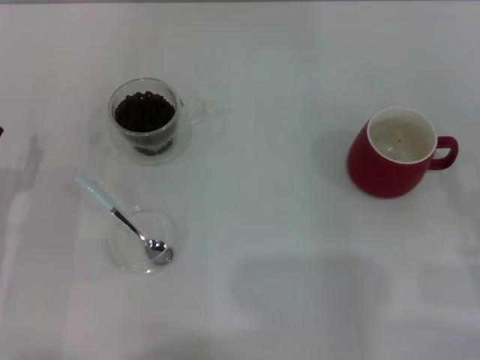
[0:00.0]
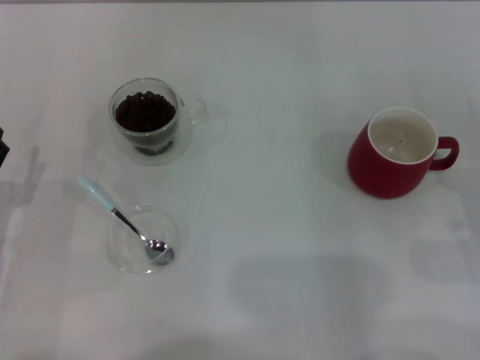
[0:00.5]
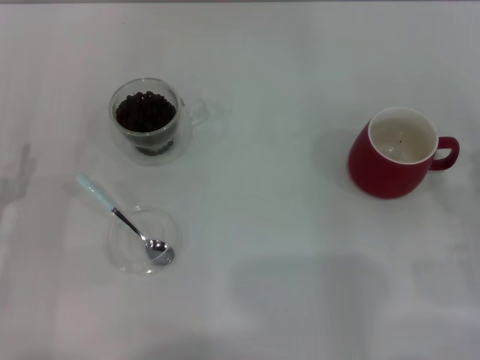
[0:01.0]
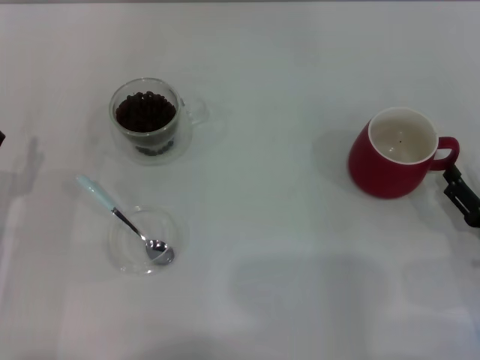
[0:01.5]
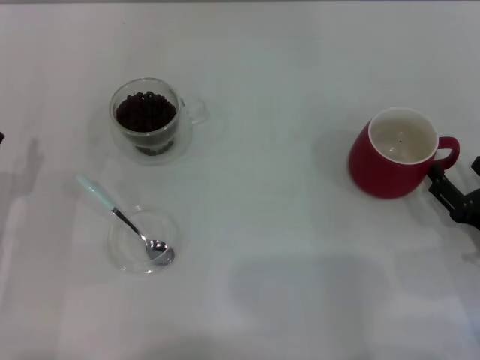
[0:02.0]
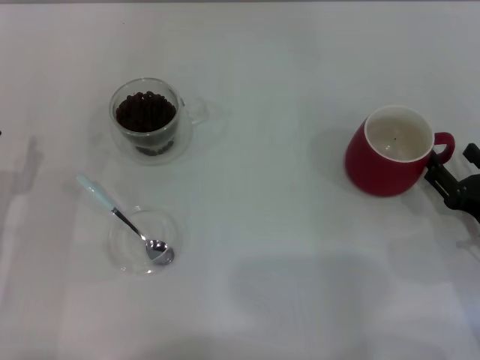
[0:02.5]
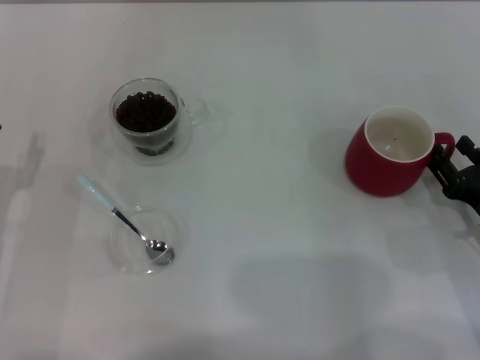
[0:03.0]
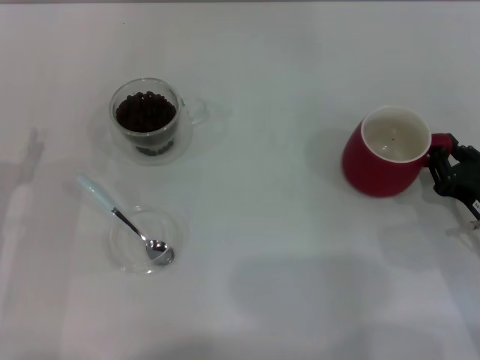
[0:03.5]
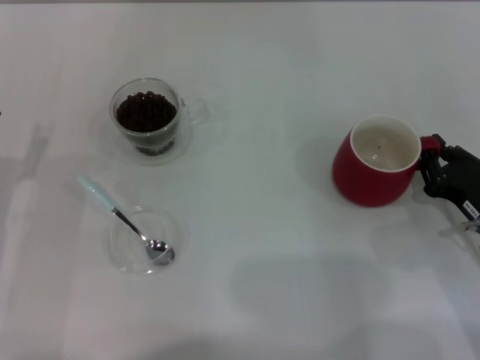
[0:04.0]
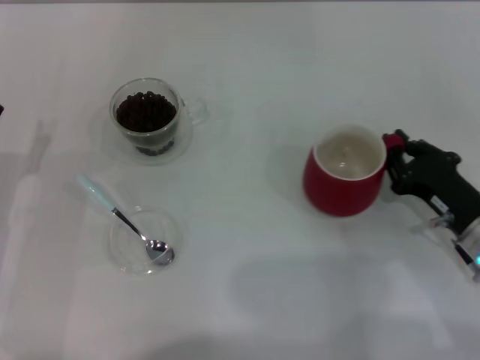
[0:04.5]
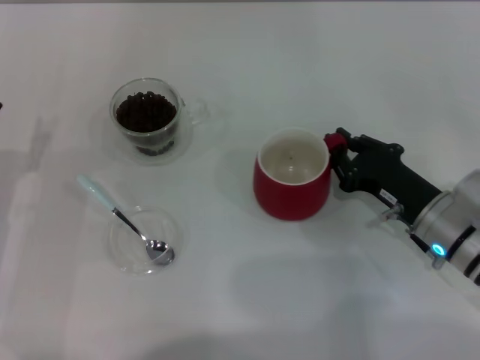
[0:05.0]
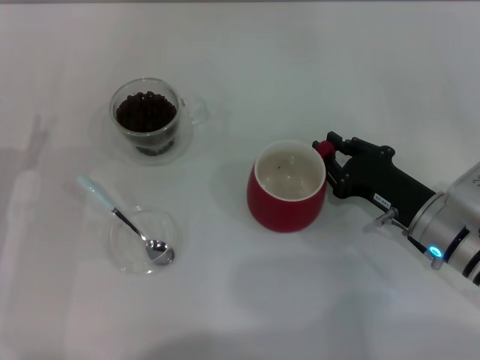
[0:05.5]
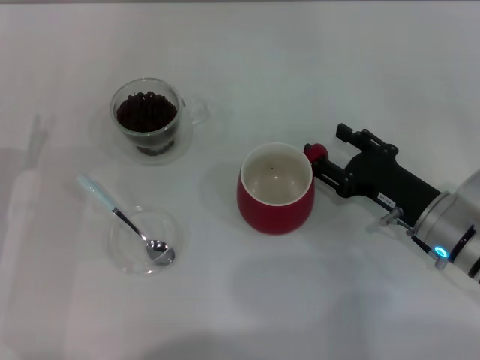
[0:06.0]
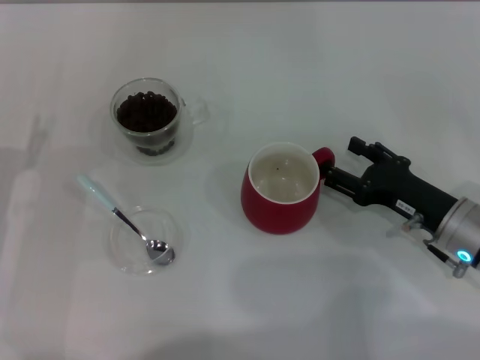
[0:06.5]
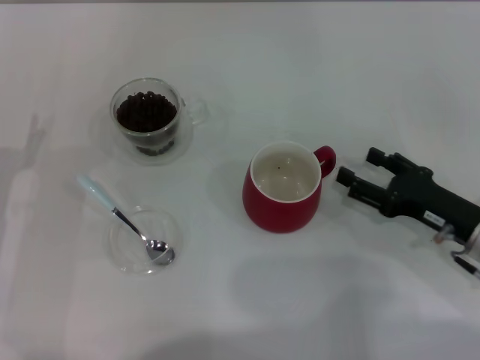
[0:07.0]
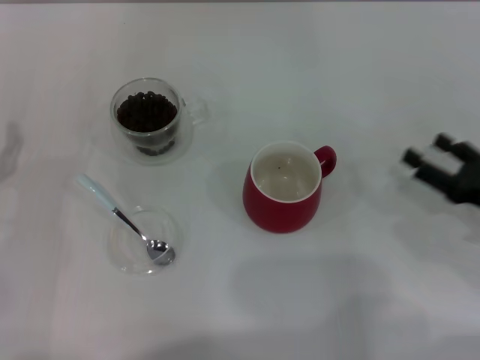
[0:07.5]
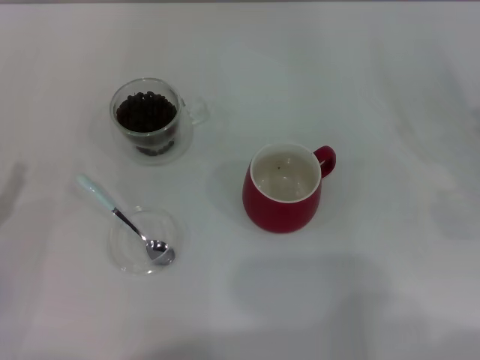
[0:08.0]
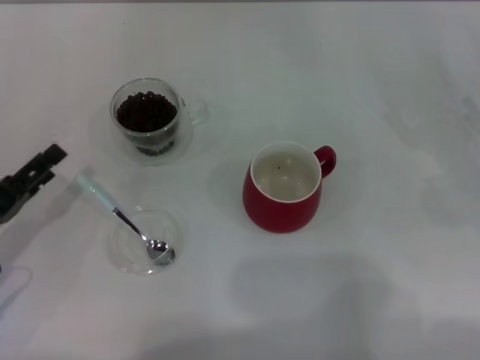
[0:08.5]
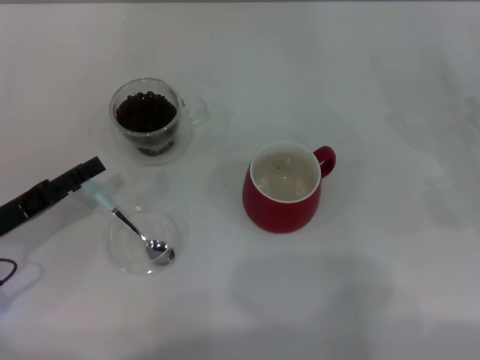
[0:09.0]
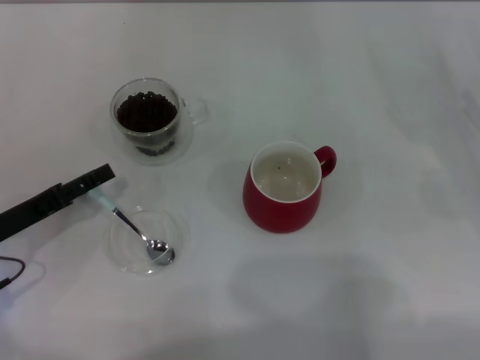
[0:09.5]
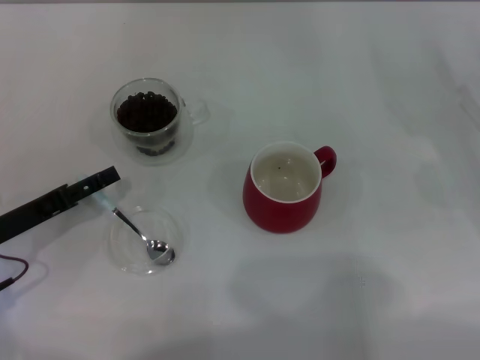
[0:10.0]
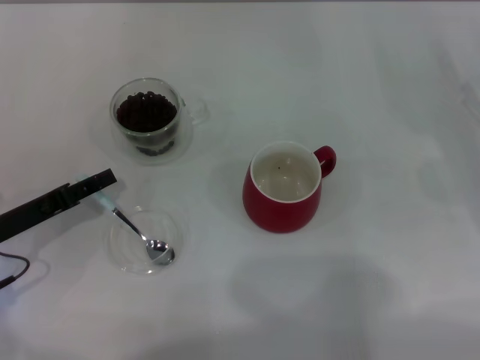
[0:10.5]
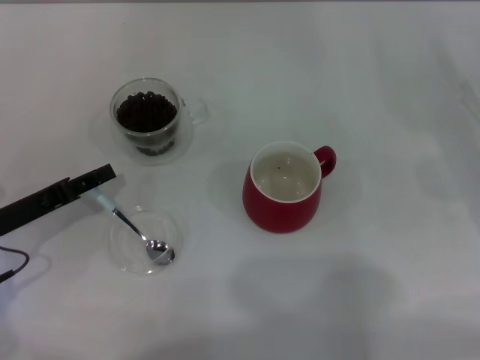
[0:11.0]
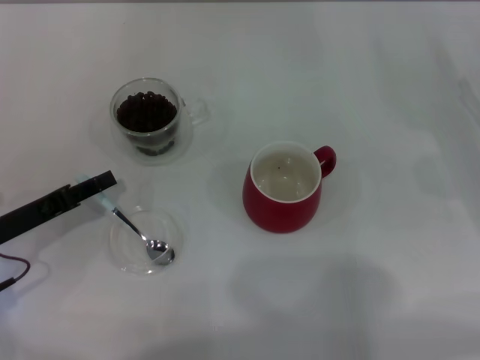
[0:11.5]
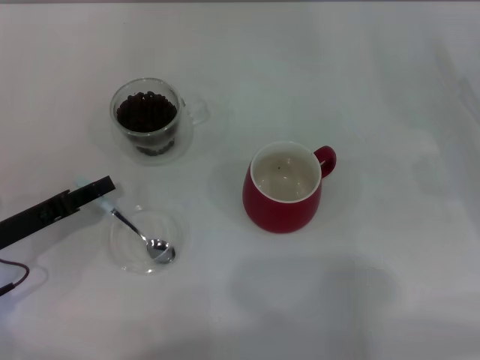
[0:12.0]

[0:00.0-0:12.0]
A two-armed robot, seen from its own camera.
Task of the whole recording: Use a blue spoon to take out the coffee beans from the glass and pour them into the red cup.
Step, 0:00.0 to 0:07.0: Move the cup to the center of view with the left gripper.
0:00.0 to 0:02.0: The grippers make only small movements.
0:02.0 to 0:04.0: The right gripper closes.
0:04.0 to 0:06.0: The right gripper shifts approximately 5 cm to the left, and opens.
0:06.0 to 0:08.0: The left gripper shifts about 5 cm backward; the right gripper travels to the right by approximately 15 cm, and opens its fingers.
0:08.0 to 0:10.0: The left gripper shifts some 5 cm forward.
0:10.0 to 0:12.0: The left gripper closes up.

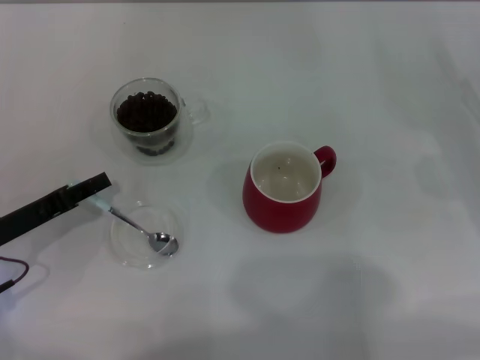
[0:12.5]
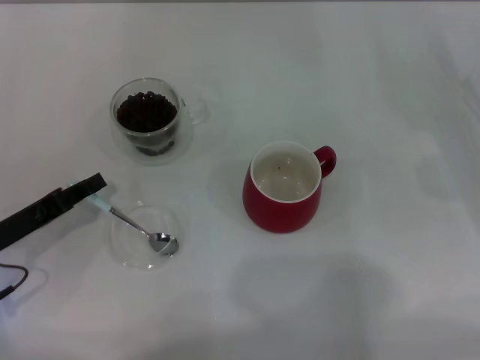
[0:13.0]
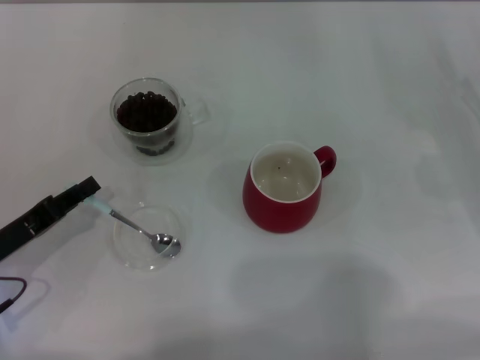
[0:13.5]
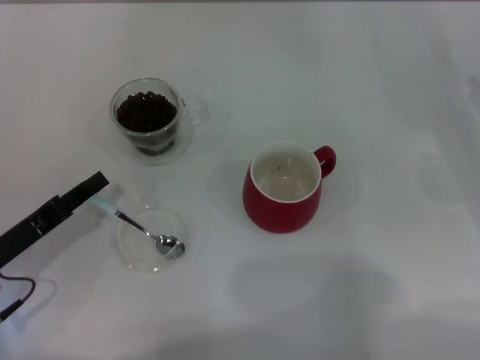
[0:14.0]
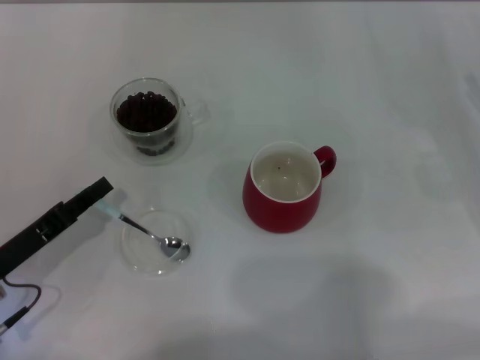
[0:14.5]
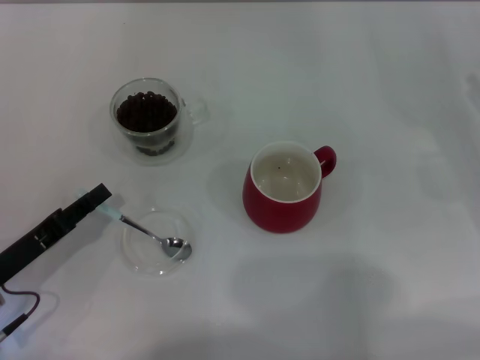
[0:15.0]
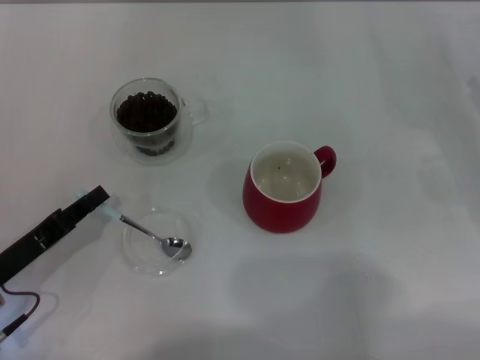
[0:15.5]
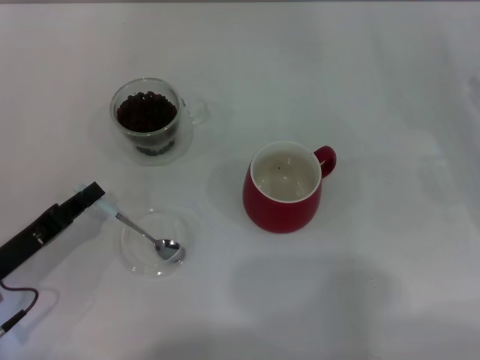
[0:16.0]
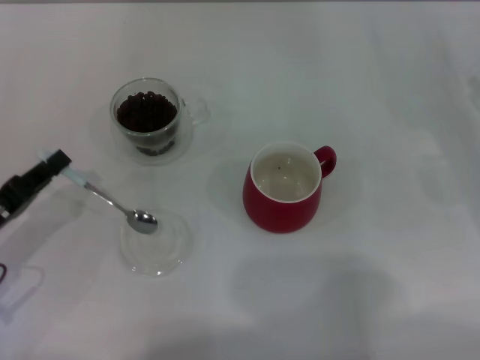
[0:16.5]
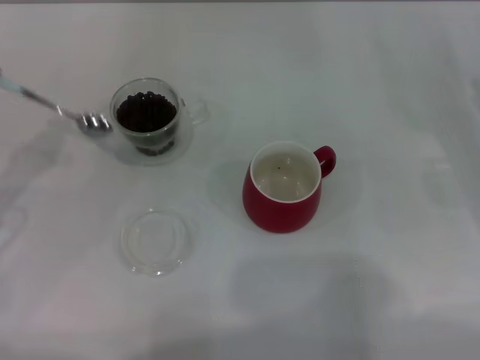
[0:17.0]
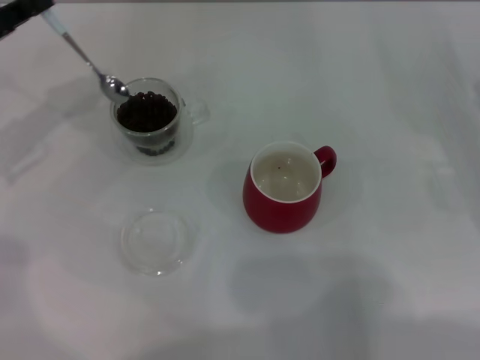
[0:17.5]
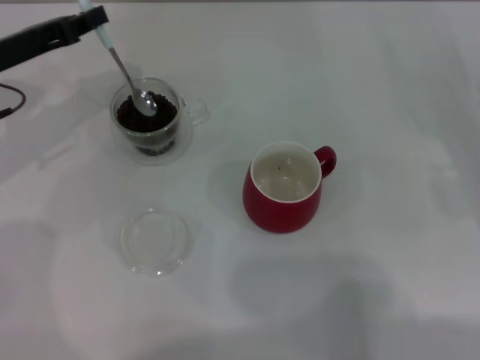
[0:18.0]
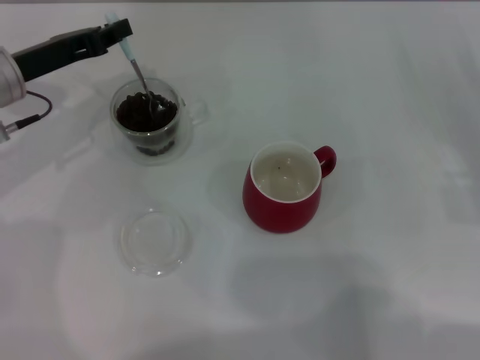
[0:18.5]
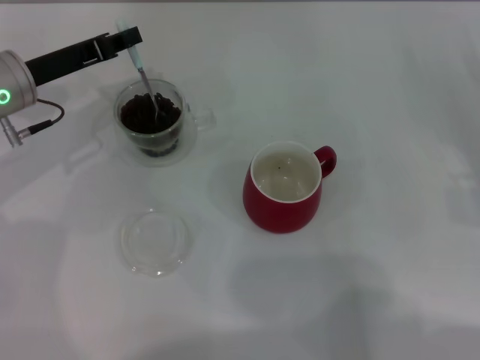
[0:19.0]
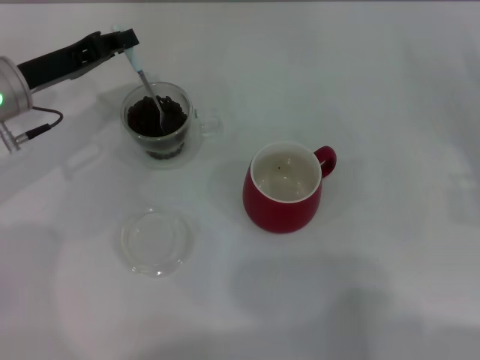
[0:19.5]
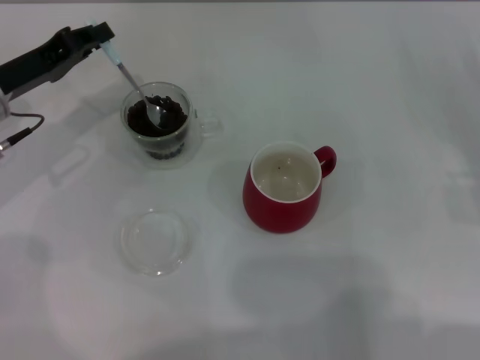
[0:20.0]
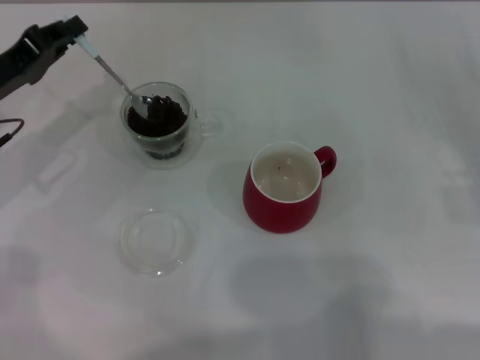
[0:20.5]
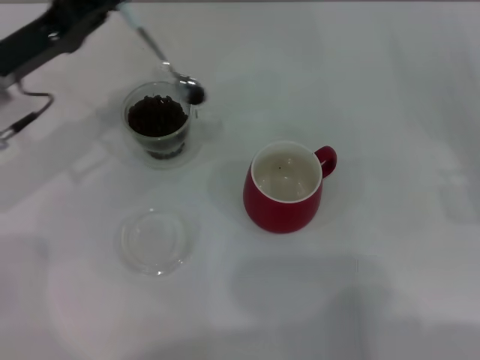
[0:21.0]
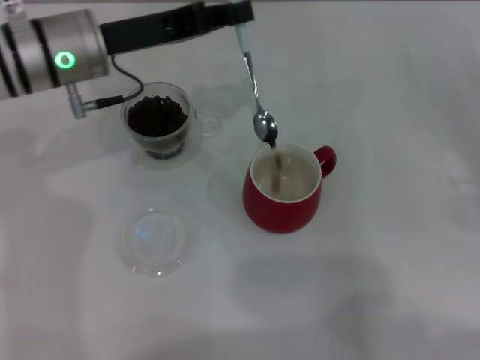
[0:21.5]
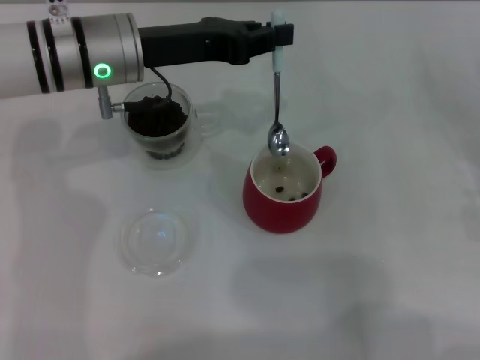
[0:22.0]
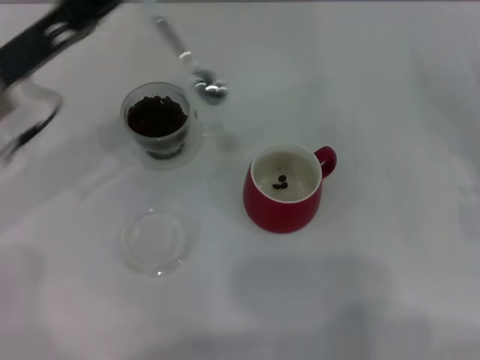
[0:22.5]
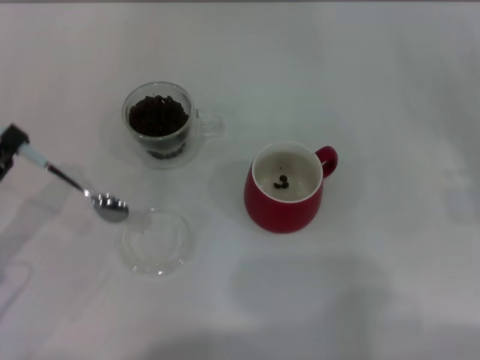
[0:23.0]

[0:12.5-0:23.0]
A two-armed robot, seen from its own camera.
Task of the whole recording: Use a blue spoon to take out the coffee beans from the glass and pour them into the red cup.
Step, 0:12.5 to 0:16.0: Pick up the spoon with the right gripper.
0:12.5 to 0:14.5: The grippers move only a little.
0:14.5 to 0:16.5: The left gripper closes up.
0:16.5 to 0:19.0: The left gripper shifts roughly 20 cm forward and upward.
0:21.0 to 0:23.0: The left gripper shifts some 20 cm backward, to the left and downward.

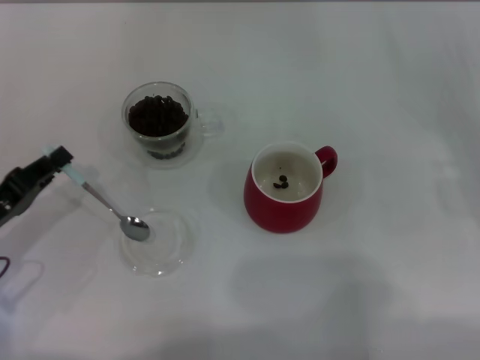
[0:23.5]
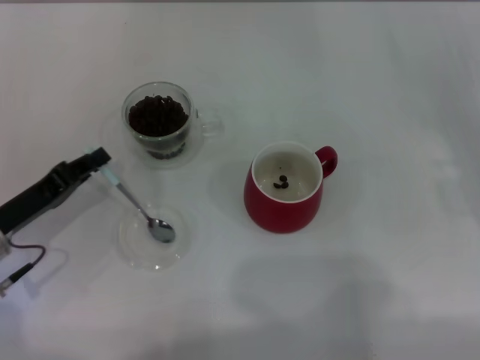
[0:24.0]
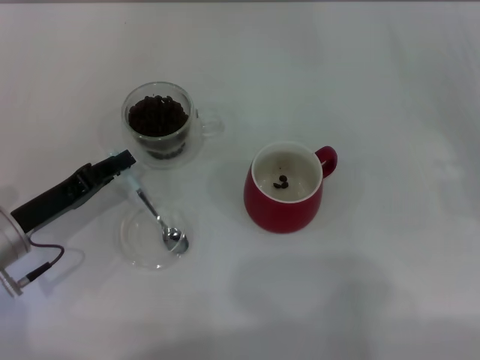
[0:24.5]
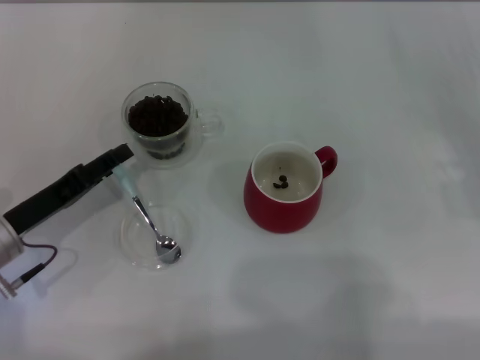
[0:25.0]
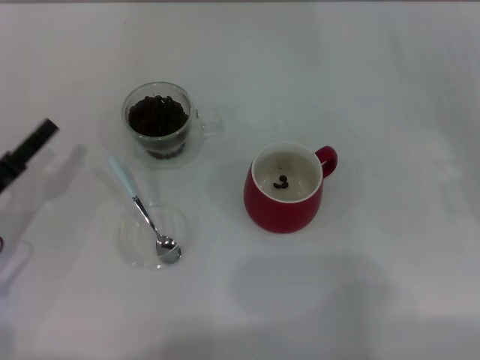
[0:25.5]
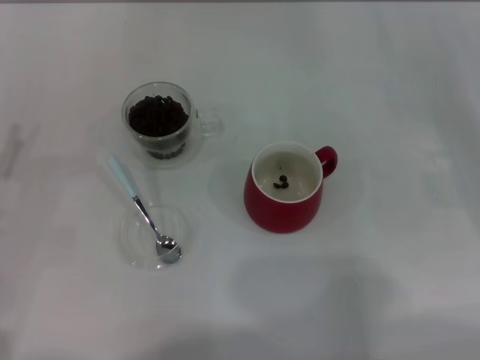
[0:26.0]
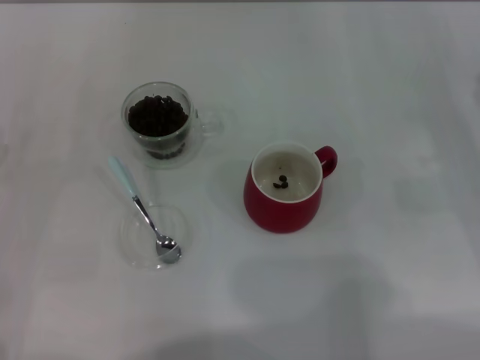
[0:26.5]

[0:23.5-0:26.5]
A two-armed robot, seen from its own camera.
Task of the whole recording: Use a blue spoon to take out the coffee beans from the glass and pour them into the red cup.
Step, 0:23.5 to 0:25.0: Place the spoon back in its original place with the right gripper.
0:23.5 to 0:25.0: The left gripper opens.
0:25.0 to 0:26.5: The left gripper heads to the left, covering some 10 cm, and opens up.
